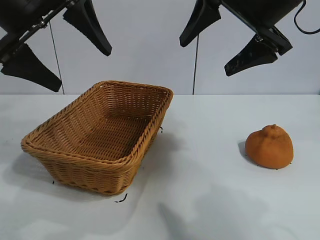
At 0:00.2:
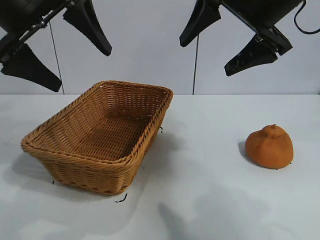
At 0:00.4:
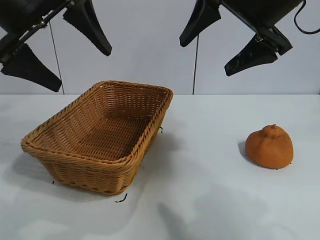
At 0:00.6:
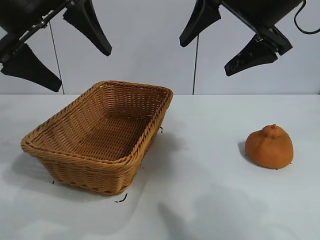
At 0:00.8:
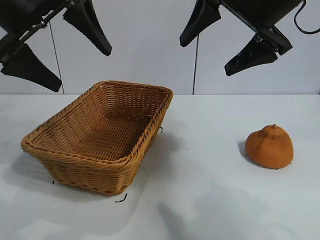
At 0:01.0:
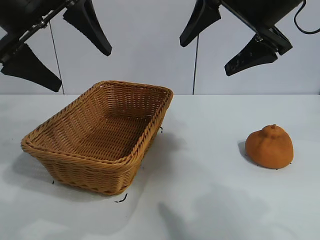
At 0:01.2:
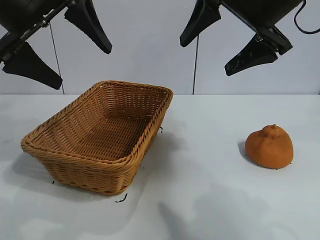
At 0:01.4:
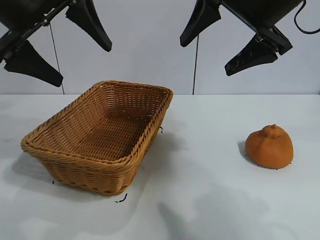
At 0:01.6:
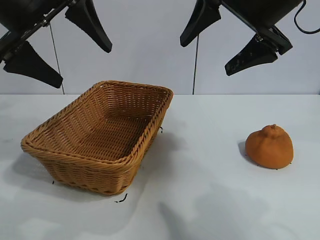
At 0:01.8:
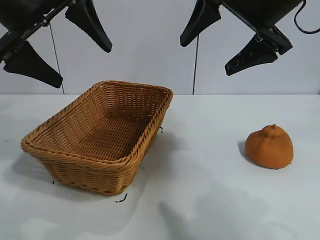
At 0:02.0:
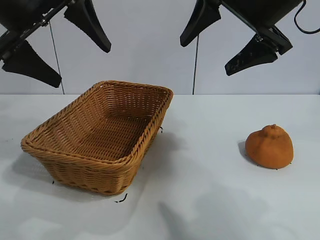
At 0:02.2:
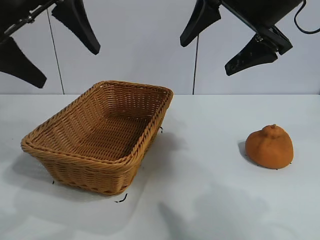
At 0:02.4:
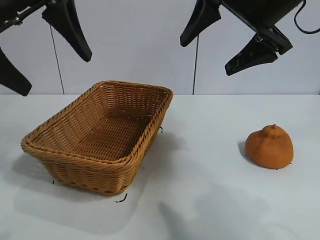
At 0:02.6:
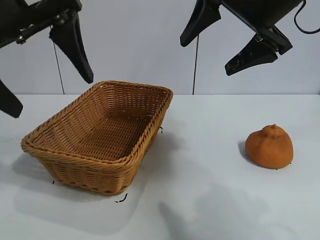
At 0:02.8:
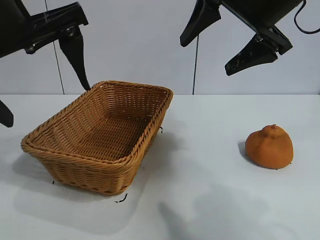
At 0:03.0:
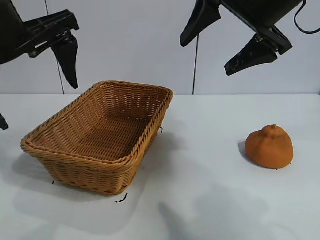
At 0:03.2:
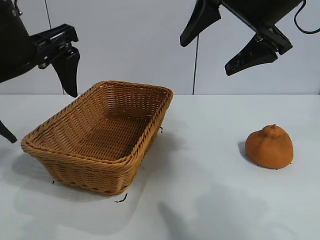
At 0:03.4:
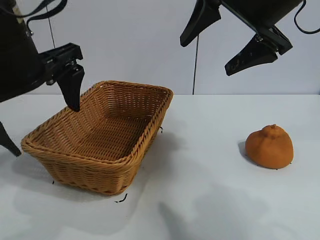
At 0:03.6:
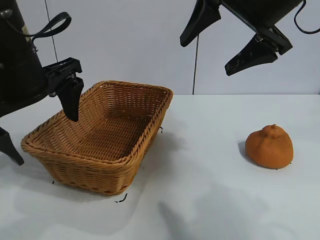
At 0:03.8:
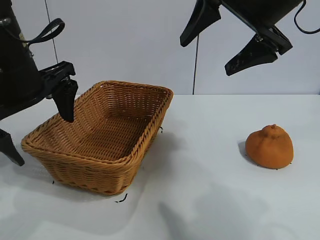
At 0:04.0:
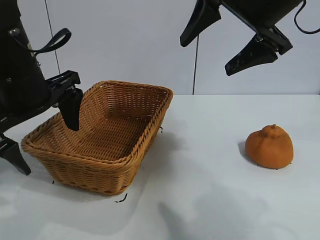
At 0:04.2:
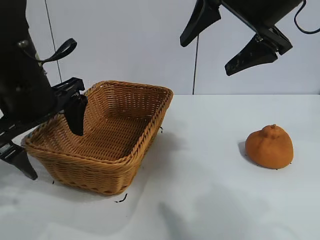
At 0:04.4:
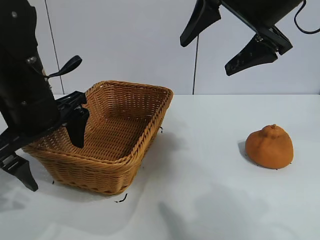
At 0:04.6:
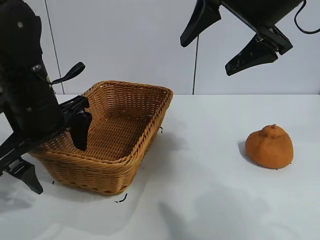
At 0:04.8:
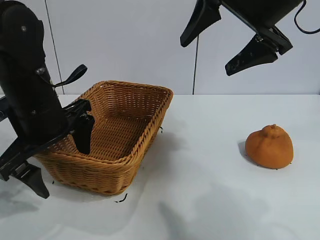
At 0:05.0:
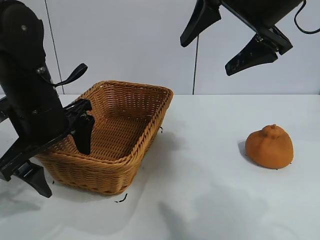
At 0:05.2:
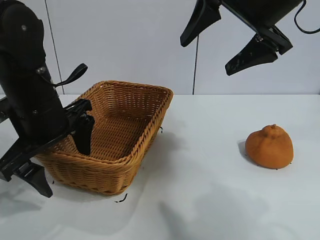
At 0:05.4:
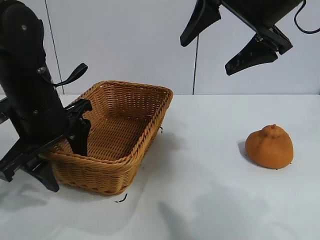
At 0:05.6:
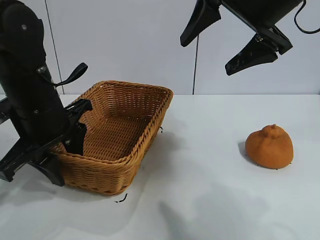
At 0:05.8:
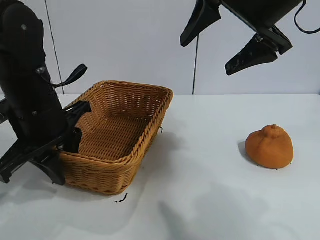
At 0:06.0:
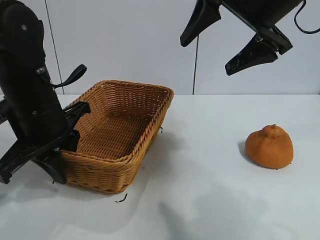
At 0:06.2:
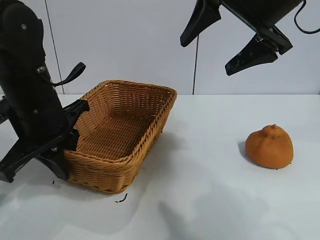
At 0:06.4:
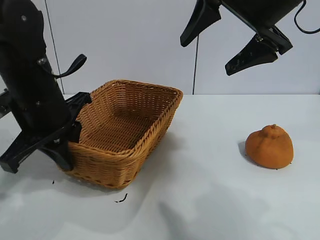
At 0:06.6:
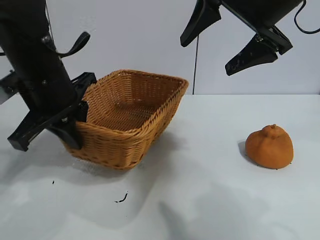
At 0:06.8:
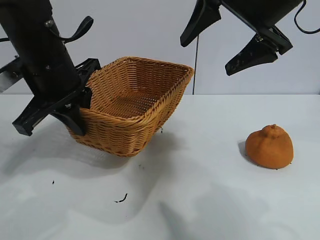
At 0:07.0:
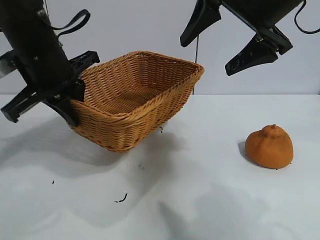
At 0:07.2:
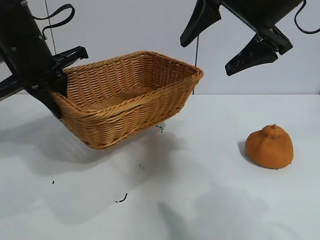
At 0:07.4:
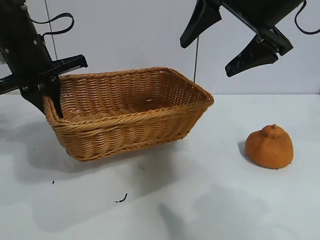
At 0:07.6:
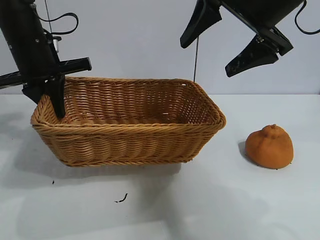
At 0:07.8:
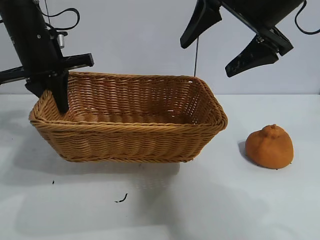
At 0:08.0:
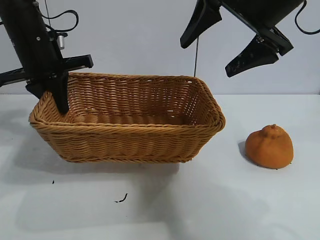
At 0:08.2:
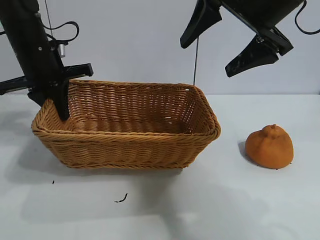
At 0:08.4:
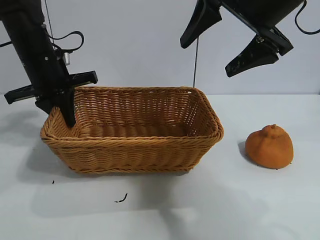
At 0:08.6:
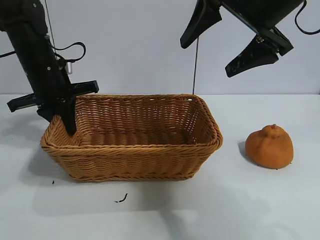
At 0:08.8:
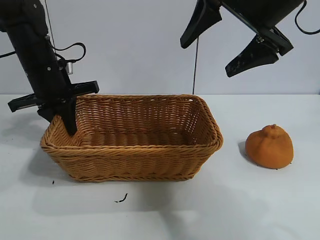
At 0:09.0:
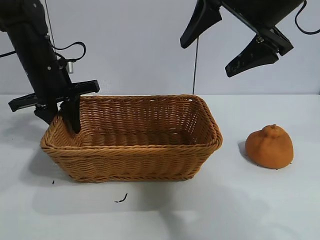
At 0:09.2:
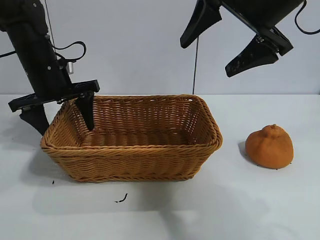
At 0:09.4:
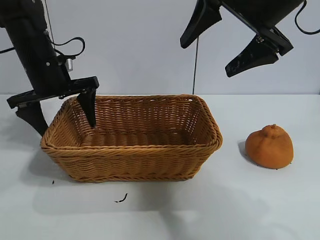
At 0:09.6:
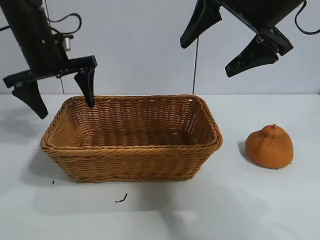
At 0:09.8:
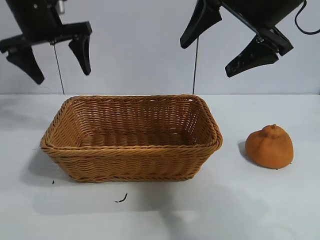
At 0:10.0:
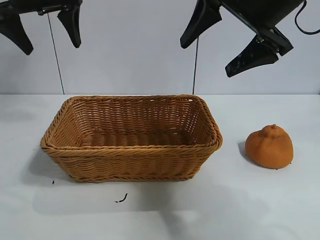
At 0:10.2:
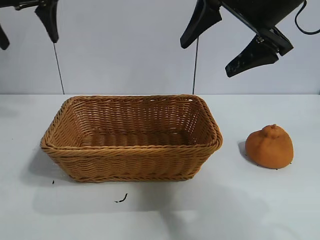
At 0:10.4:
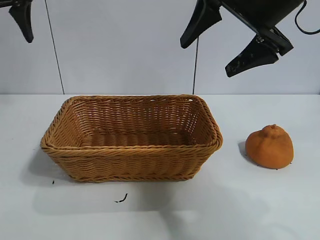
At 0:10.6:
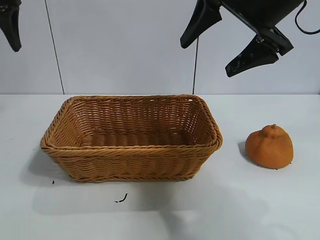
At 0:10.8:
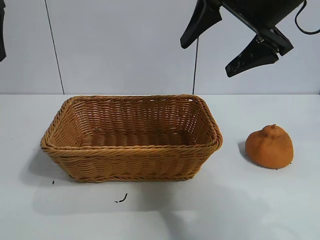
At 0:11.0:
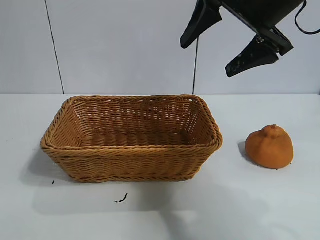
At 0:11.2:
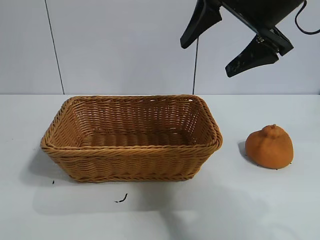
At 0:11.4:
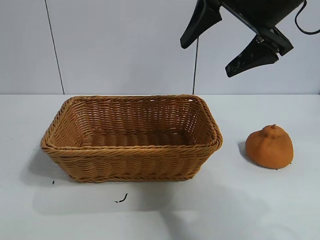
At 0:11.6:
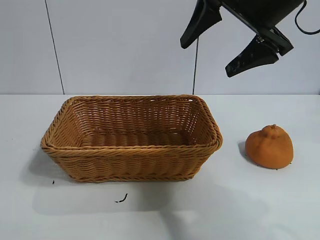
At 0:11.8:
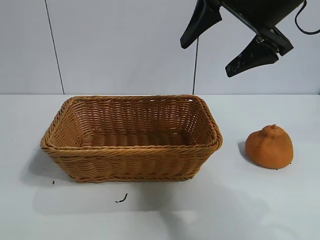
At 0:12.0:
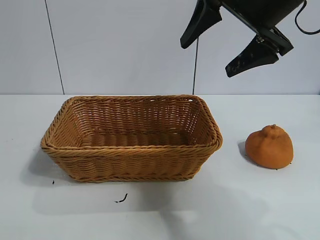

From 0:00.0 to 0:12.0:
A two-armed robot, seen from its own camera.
Task of the whole recording: pick up the orange and put it into the basket.
Step, from 0:01.2 to 0:06.0: Grasp the basket with left gripper.
Step, from 0:06.2 to 0:09.2: Place the basket in the center of view with left gripper.

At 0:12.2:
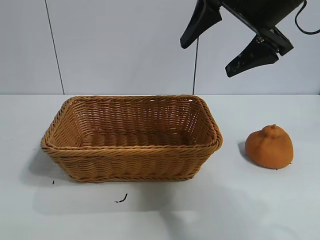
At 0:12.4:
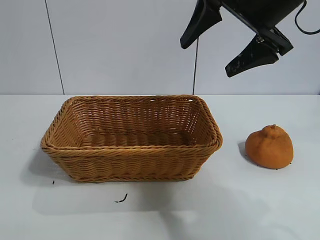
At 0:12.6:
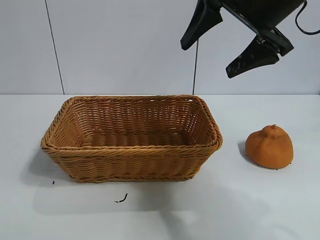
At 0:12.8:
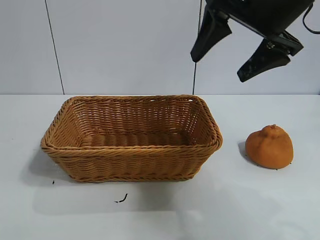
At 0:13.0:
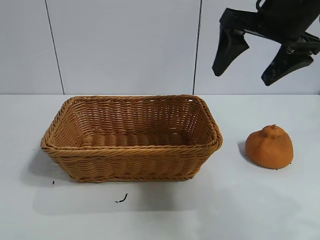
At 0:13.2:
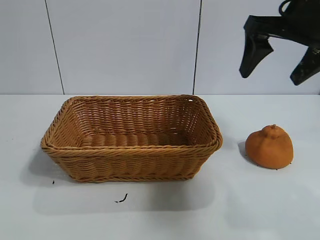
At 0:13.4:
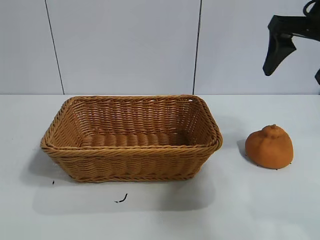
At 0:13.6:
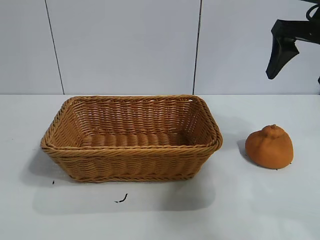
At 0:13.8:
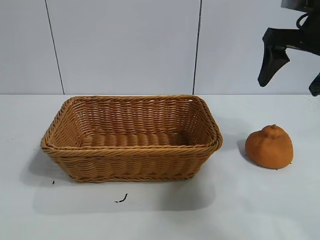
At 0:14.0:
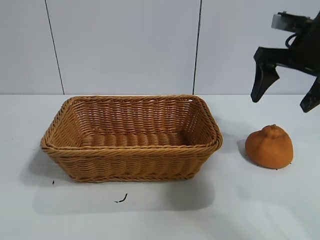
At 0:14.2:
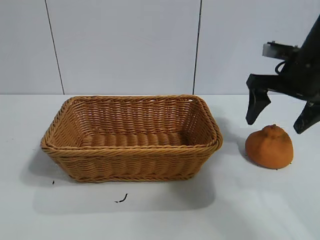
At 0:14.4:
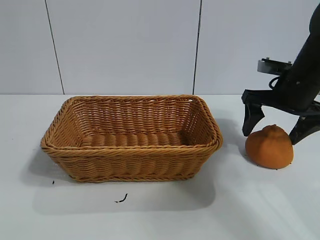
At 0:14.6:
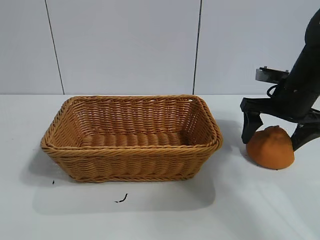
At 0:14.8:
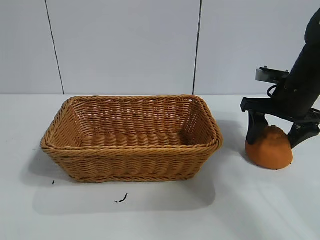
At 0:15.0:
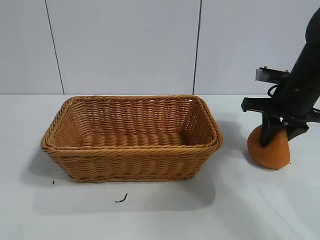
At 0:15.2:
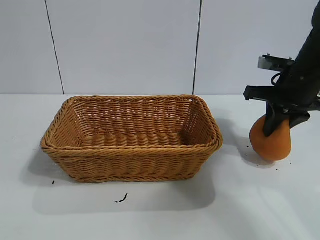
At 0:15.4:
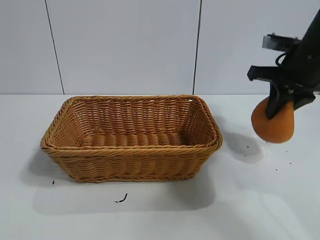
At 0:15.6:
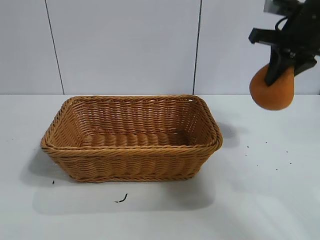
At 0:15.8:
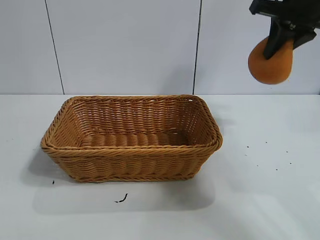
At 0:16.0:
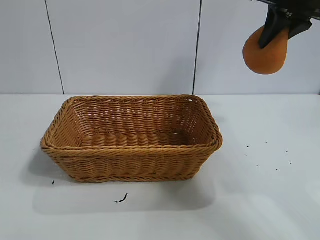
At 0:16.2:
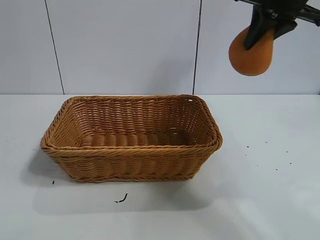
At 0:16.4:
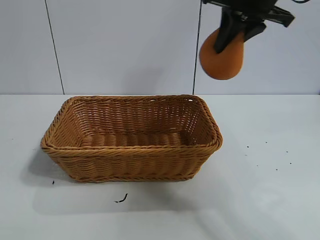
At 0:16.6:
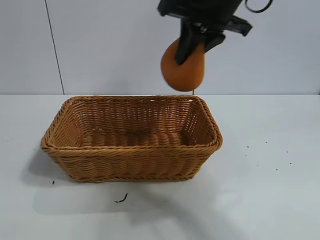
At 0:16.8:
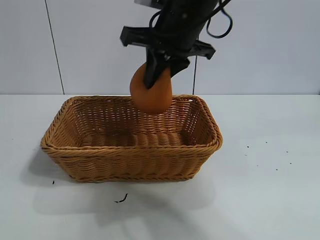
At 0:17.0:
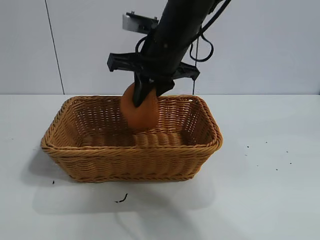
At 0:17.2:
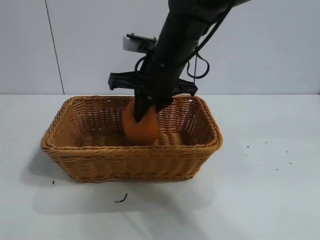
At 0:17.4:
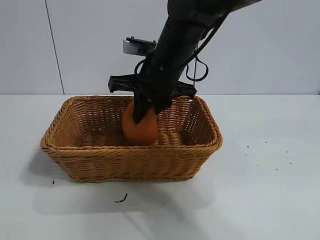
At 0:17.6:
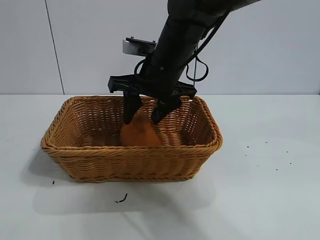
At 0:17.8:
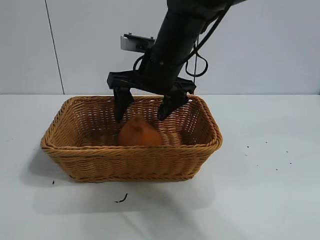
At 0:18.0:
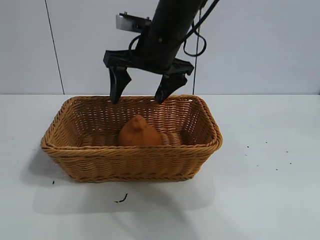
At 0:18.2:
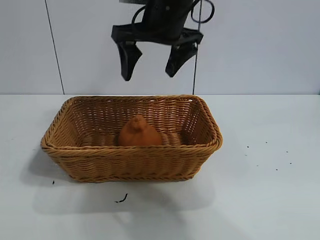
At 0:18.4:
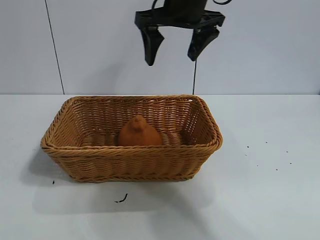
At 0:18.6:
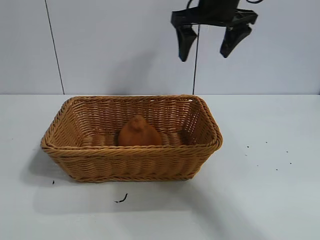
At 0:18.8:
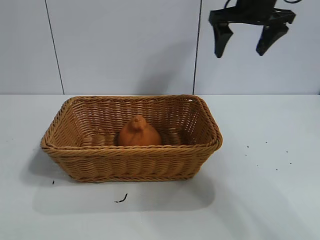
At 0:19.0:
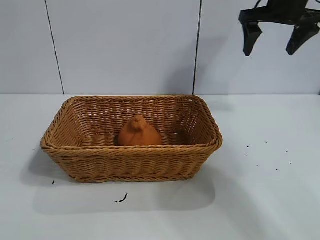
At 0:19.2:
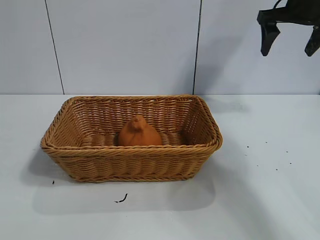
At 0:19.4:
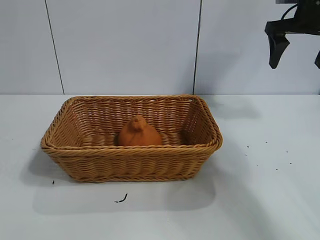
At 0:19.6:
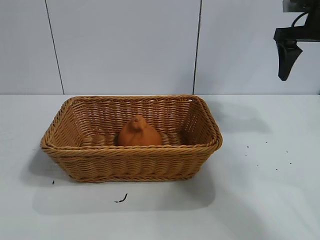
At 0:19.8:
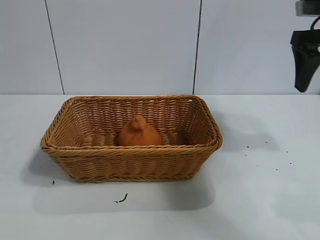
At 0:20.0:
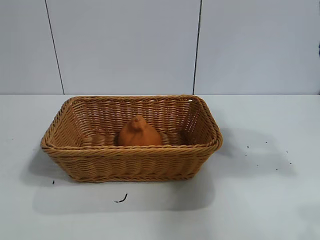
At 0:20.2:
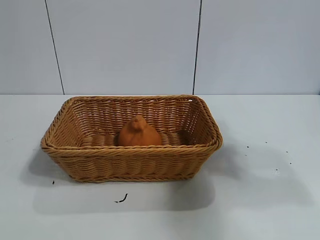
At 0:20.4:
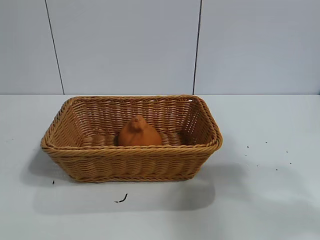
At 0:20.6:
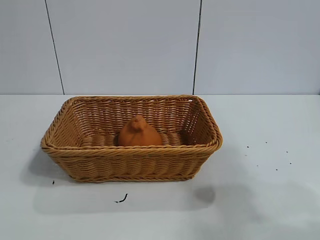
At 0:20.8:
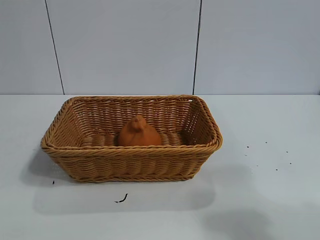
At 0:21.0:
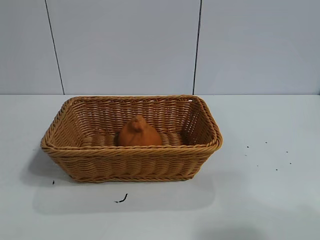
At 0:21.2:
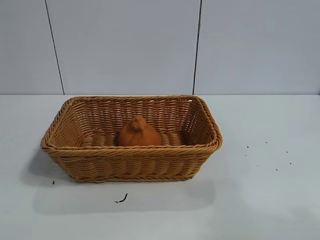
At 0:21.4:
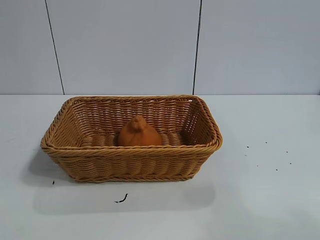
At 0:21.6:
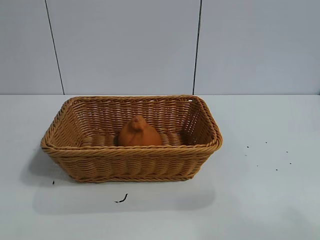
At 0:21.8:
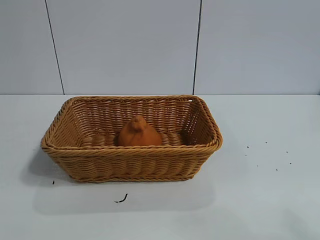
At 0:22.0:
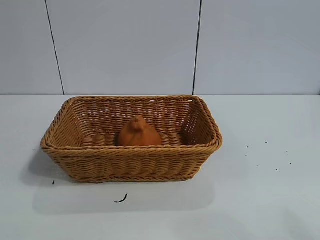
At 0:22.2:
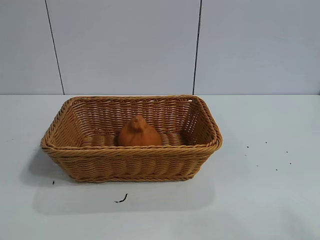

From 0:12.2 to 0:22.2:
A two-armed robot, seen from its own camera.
Task of the whole recording: pick up the orange and put it into the basket.
Step, from 0:12.2 to 0:15.0: Grasp the orange with right gripper.
Step, from 0:15.4 to 0:17.6: Place the orange in the basket with right gripper.
